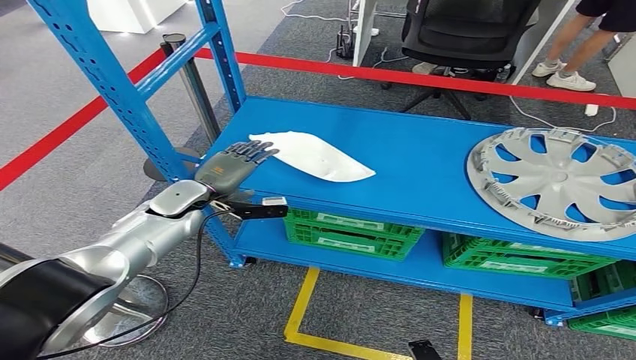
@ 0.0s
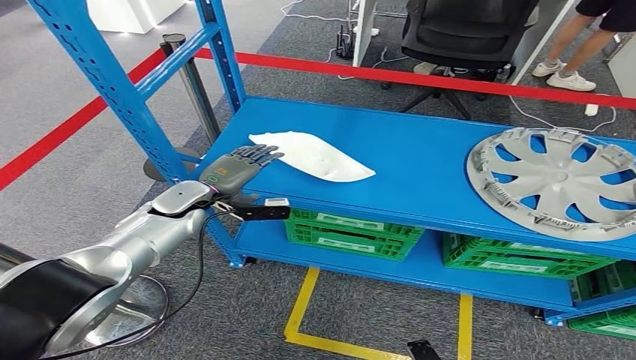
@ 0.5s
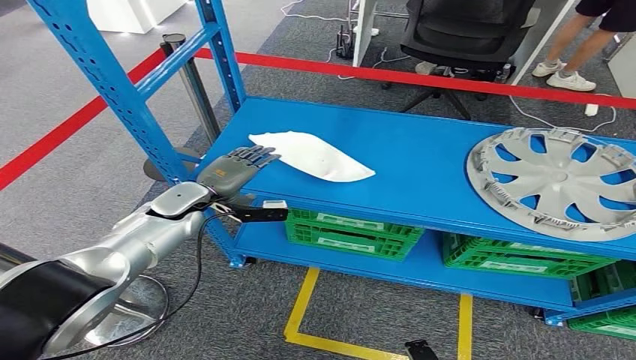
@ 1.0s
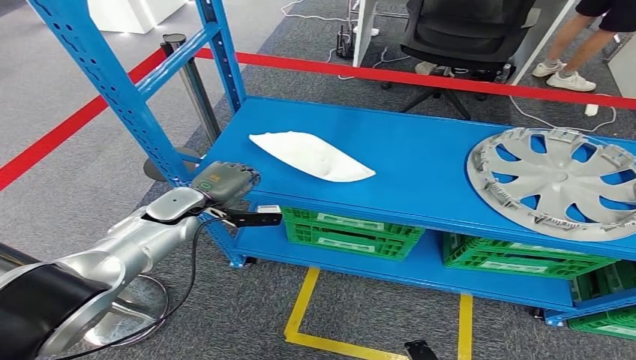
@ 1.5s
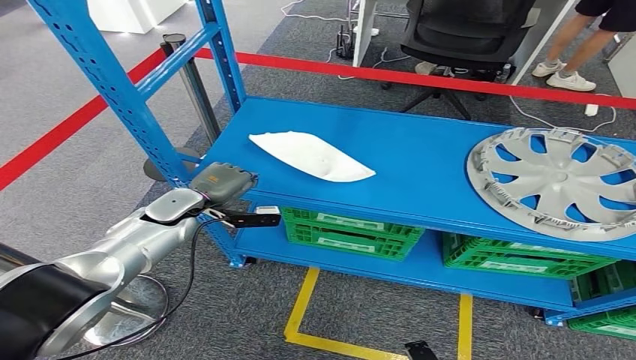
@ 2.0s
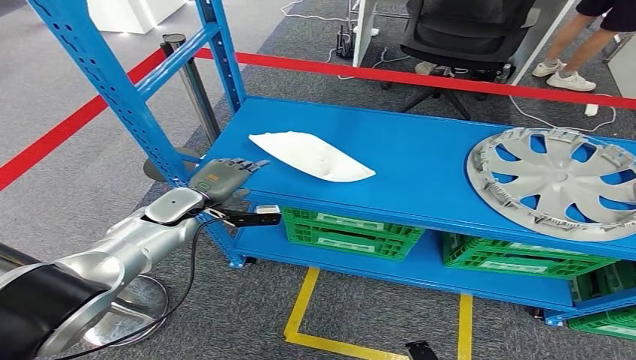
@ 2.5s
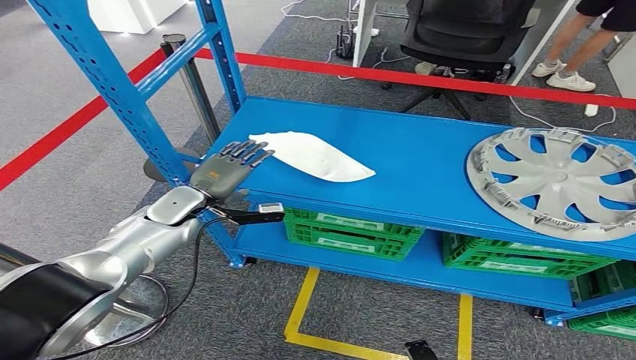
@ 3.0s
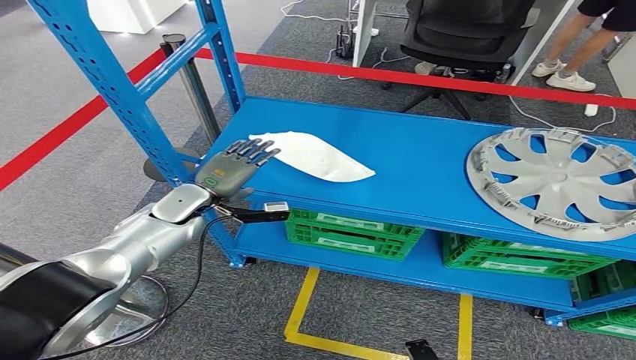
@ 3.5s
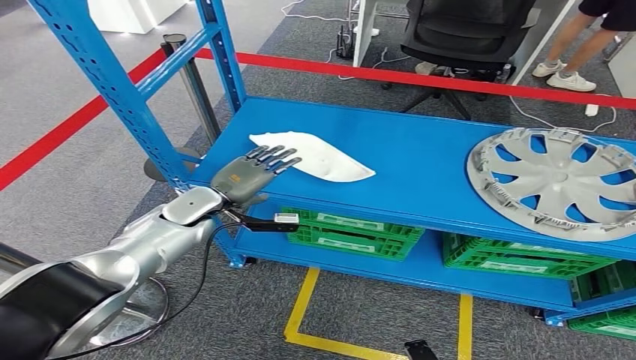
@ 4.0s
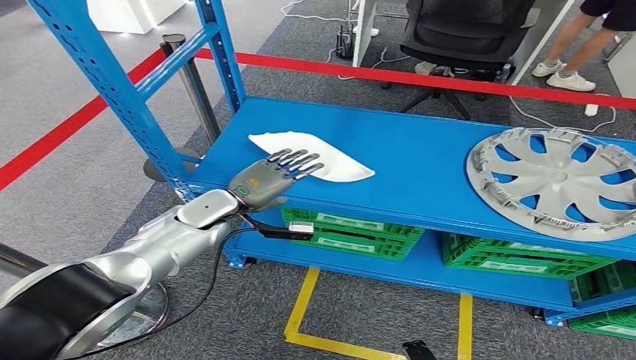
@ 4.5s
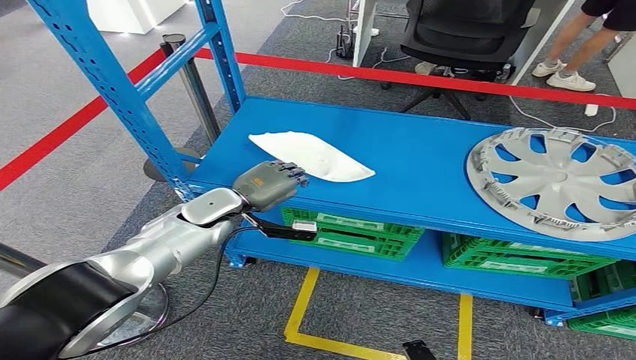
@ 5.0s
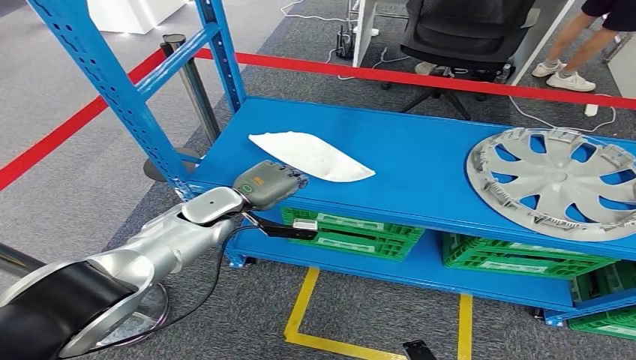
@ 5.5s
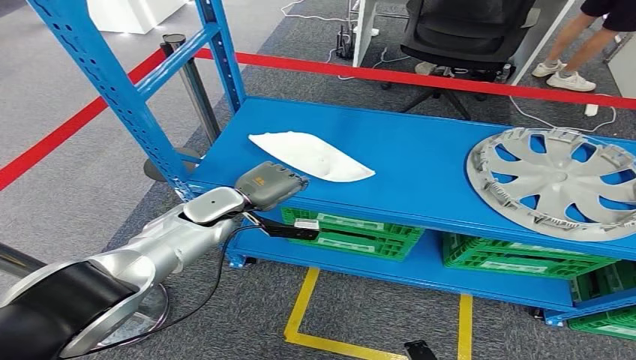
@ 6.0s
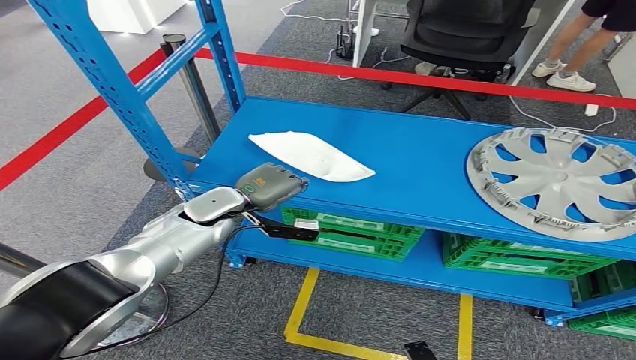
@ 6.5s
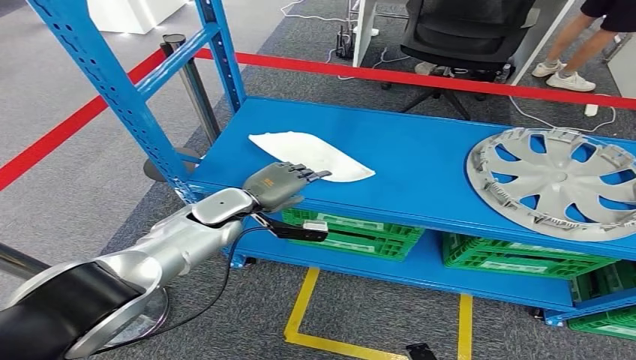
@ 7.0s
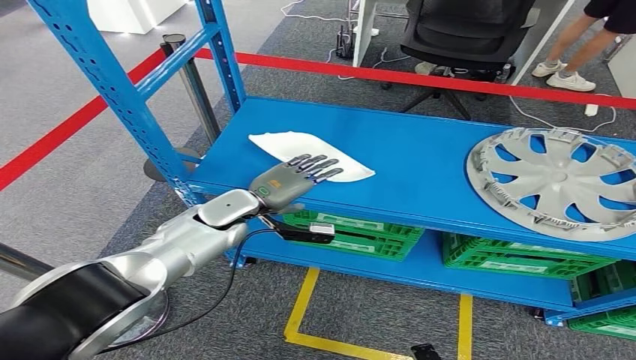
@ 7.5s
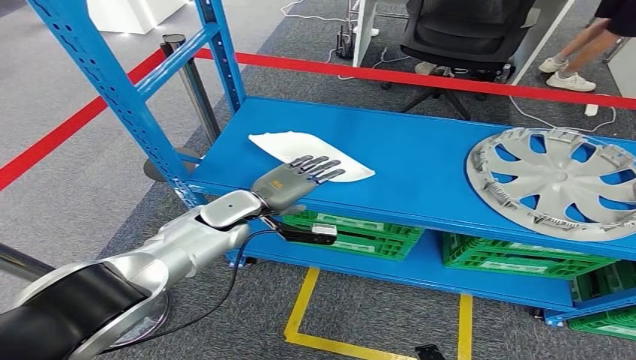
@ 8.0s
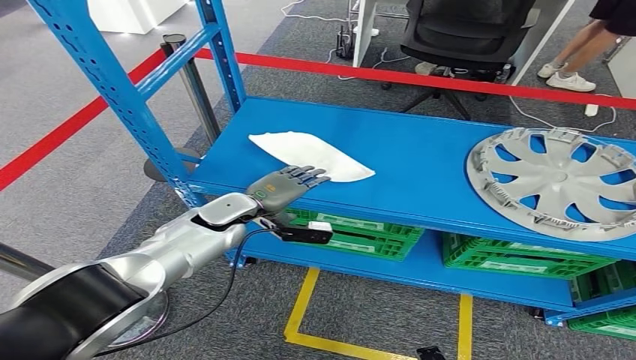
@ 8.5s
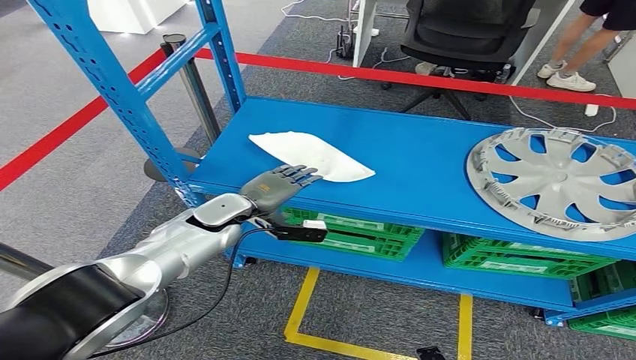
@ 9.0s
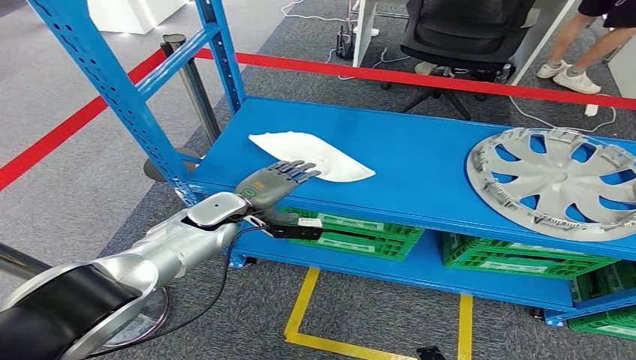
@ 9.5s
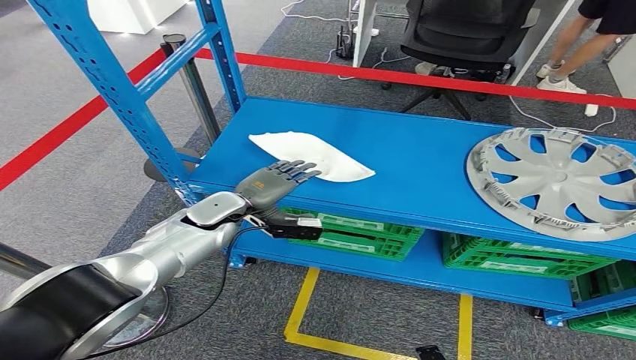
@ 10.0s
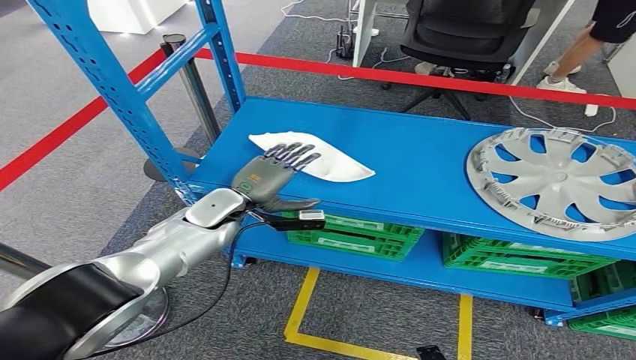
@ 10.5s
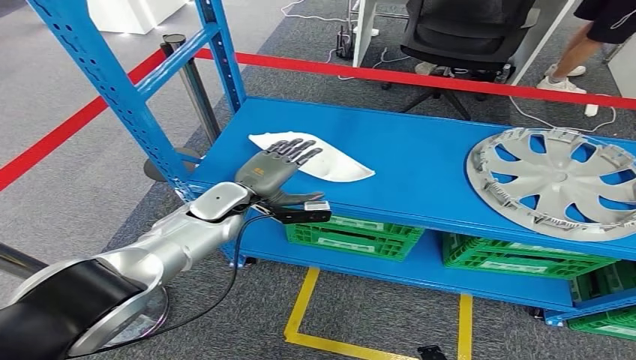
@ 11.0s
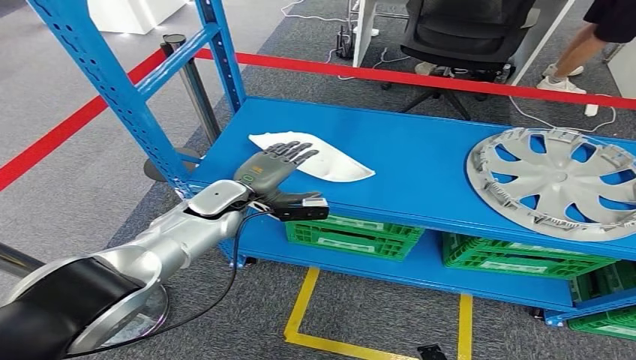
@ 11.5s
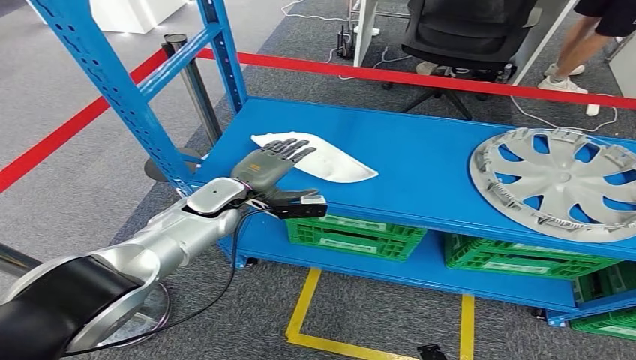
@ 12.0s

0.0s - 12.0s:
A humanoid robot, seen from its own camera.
0.0s - 6.0s: The hands move only a little.
6.0s - 12.0s: The hands move only a little.

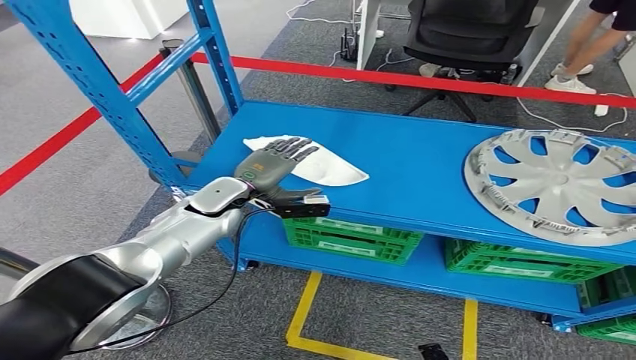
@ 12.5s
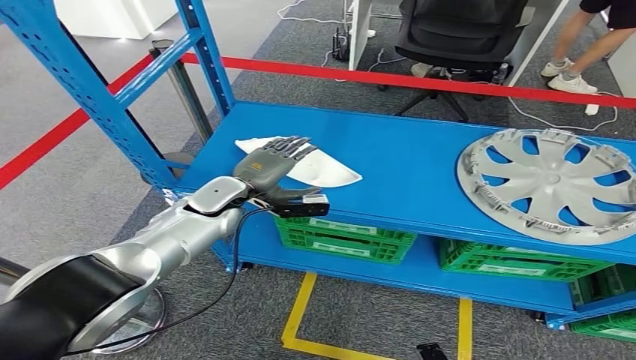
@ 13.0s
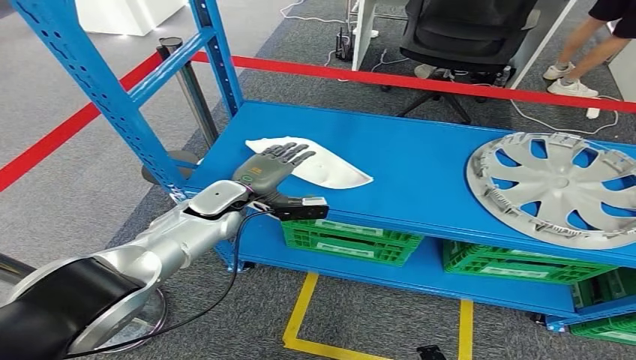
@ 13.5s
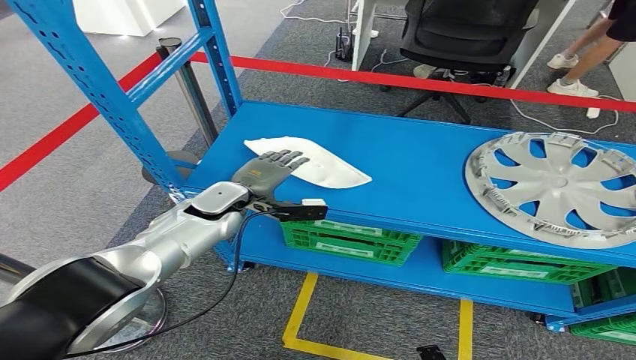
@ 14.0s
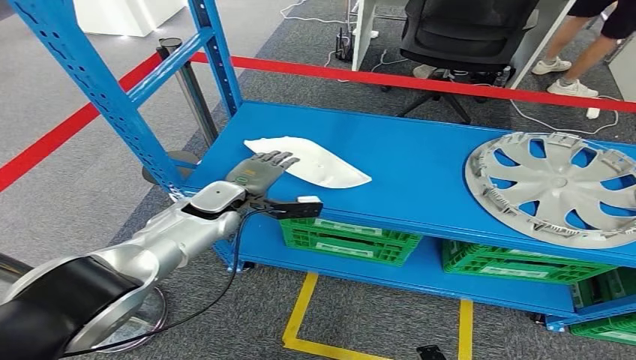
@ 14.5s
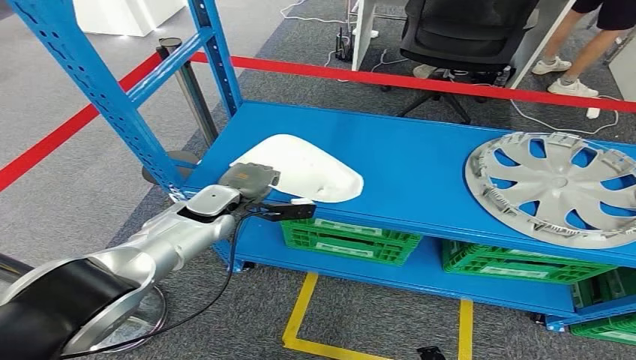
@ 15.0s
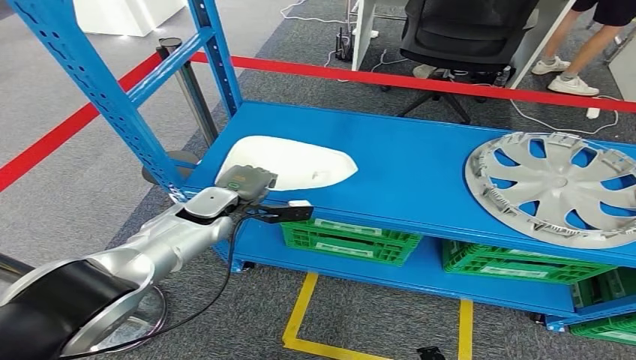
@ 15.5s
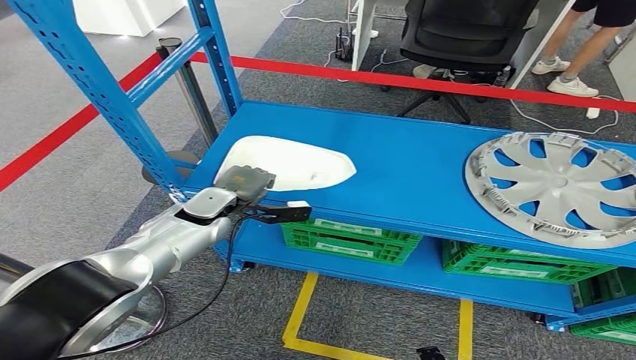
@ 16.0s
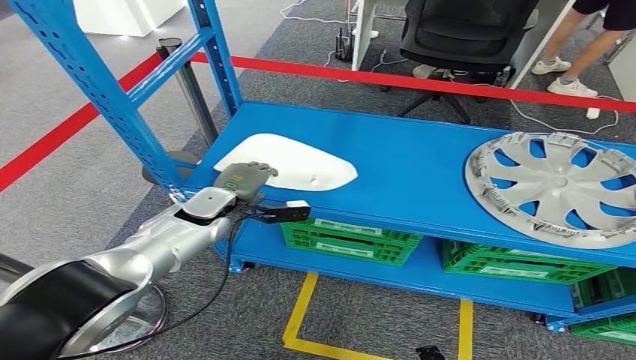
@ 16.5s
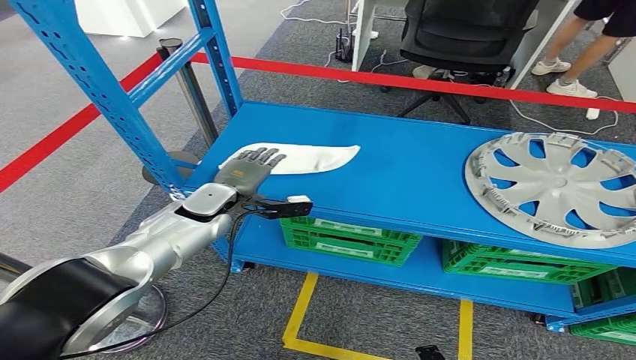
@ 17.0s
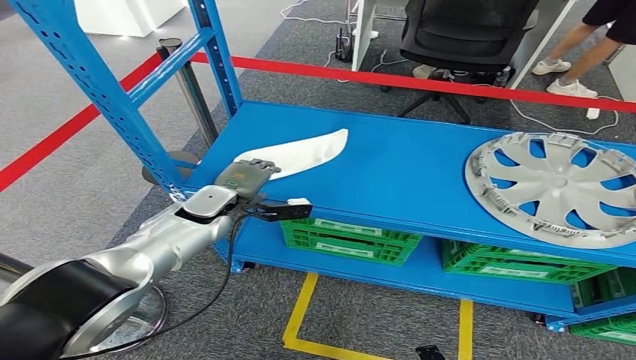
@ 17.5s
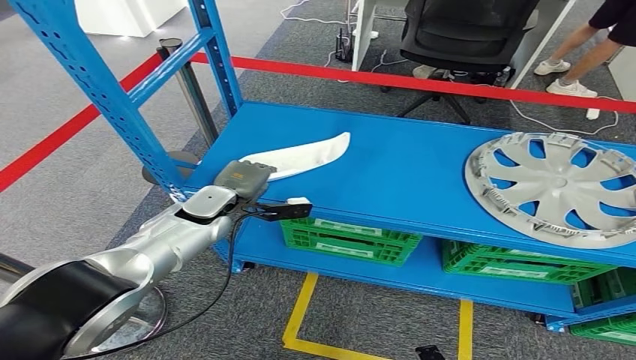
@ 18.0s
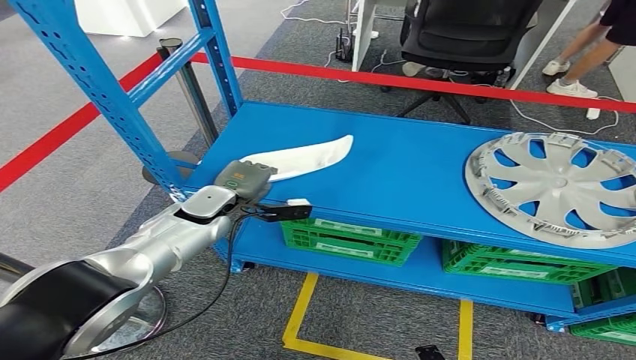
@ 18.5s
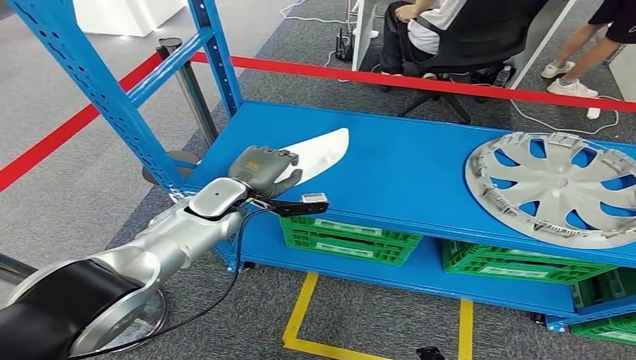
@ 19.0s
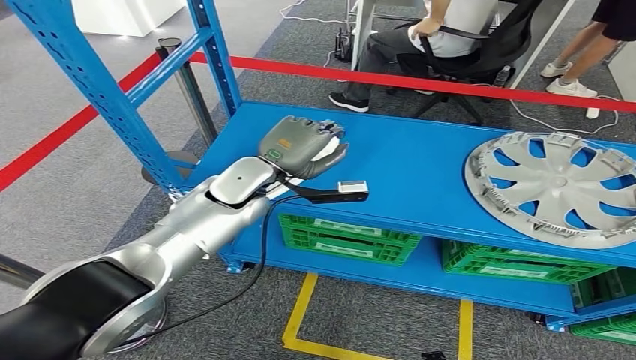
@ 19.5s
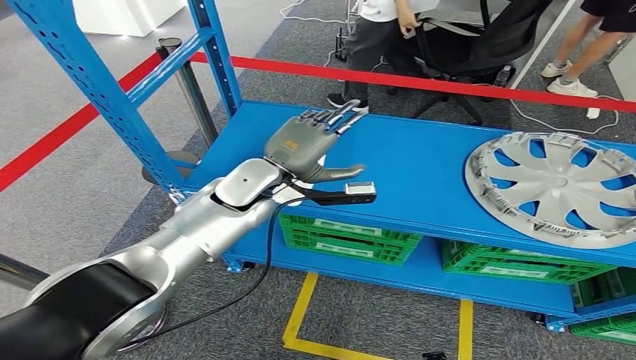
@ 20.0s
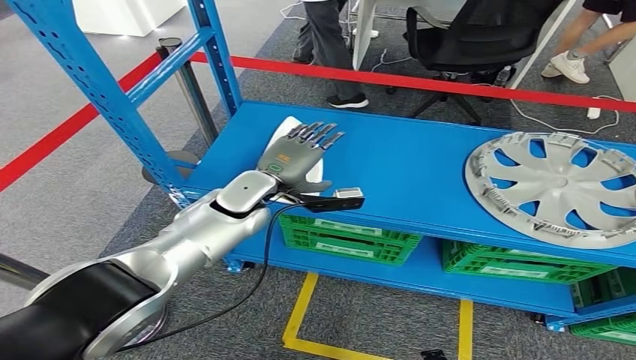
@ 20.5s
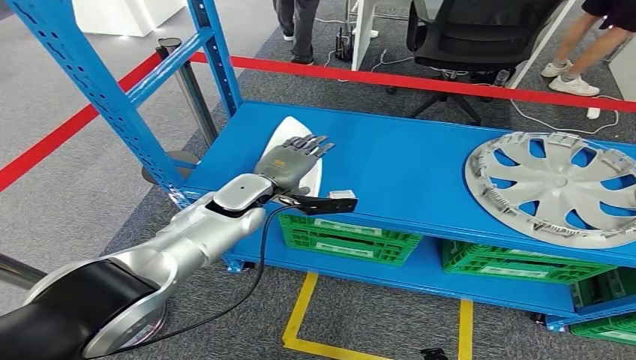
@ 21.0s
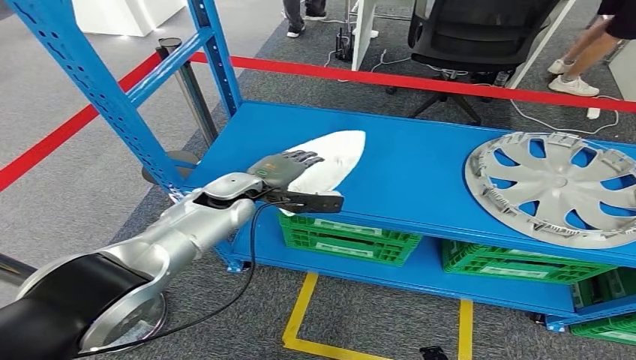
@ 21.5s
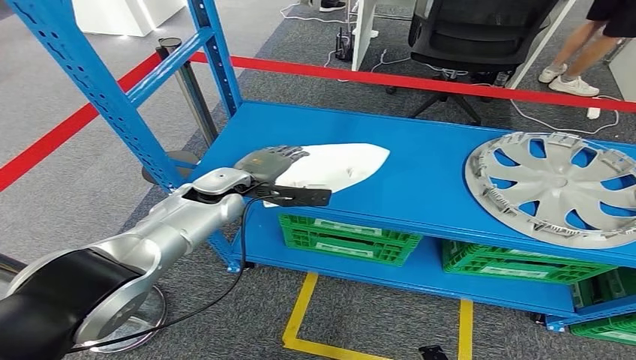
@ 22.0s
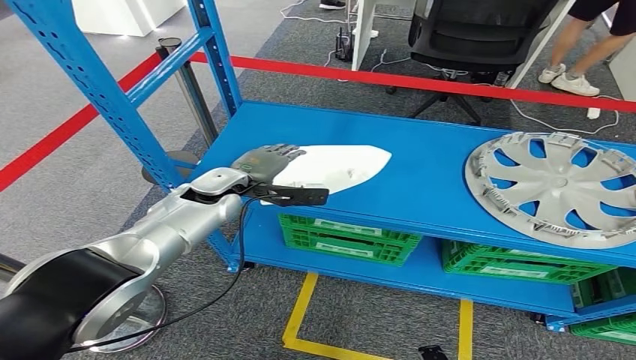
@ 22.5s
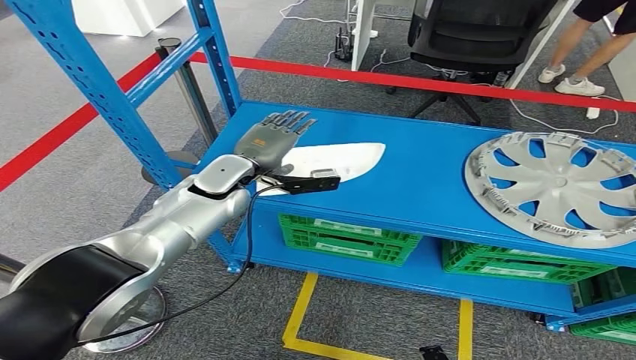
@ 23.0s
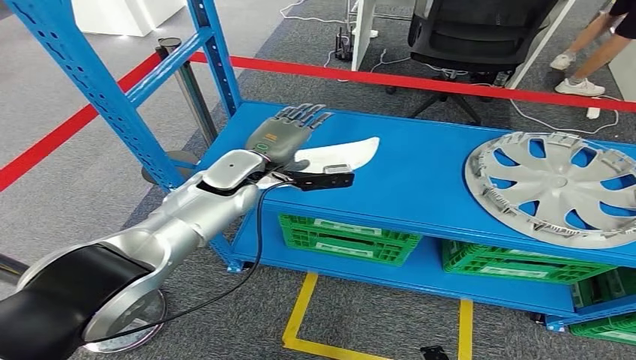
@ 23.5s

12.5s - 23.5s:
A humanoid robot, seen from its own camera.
12.5s - 14.5s: The hands move only a little.
14.5s - 16.0s: The hands stay close to where they were, moving slightly.
16.0s - 18.0s: The two hands keep their place.
18.0s - 20.0s: The left hand travels upward and to the right by some 15 cm.
20.0s - 21.5s: The left hand is displaced downward by about 5 cm.
